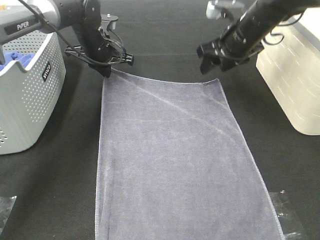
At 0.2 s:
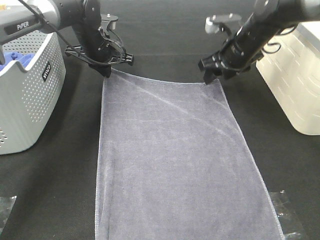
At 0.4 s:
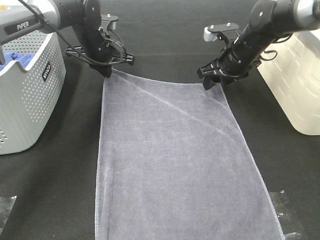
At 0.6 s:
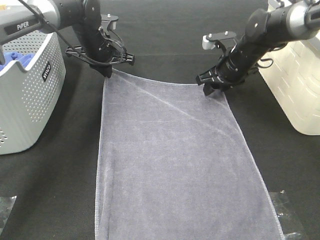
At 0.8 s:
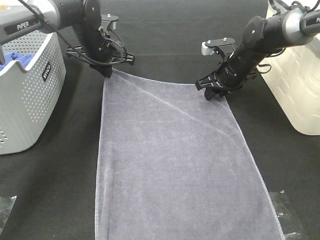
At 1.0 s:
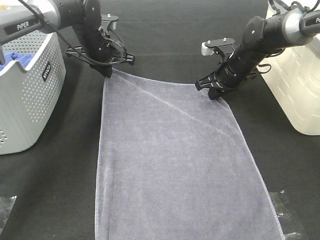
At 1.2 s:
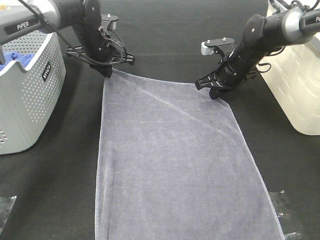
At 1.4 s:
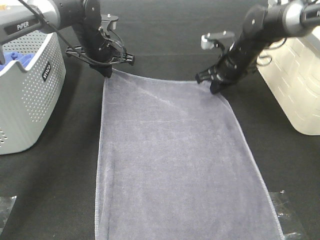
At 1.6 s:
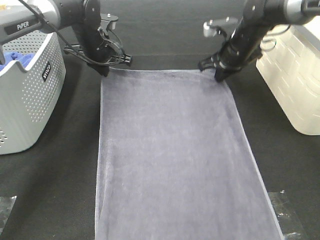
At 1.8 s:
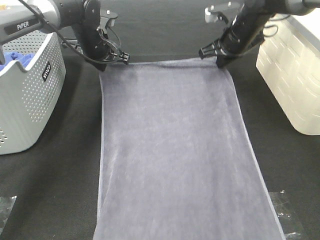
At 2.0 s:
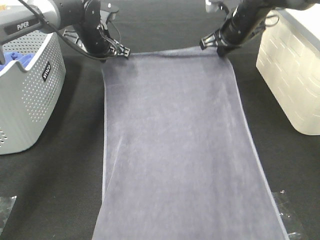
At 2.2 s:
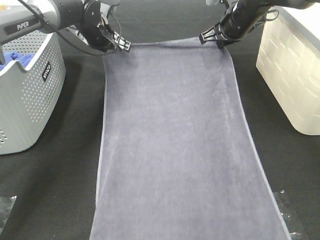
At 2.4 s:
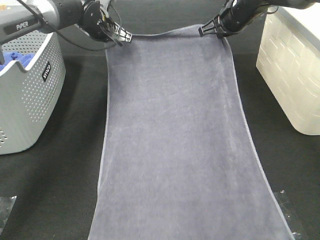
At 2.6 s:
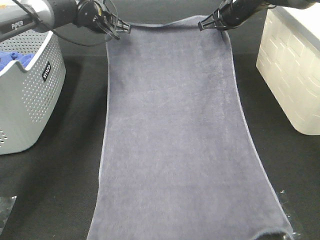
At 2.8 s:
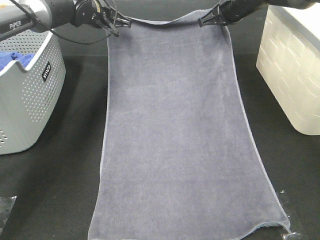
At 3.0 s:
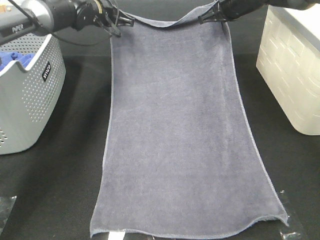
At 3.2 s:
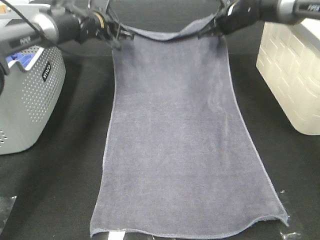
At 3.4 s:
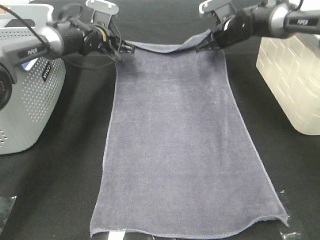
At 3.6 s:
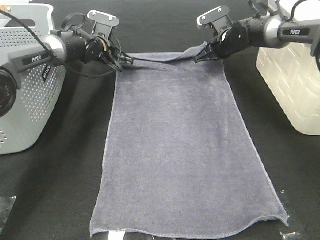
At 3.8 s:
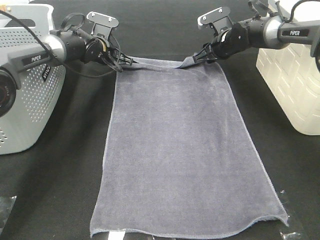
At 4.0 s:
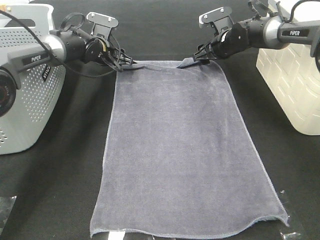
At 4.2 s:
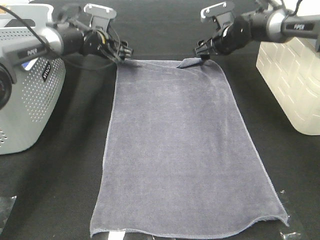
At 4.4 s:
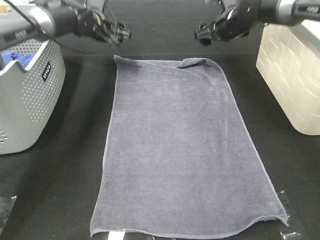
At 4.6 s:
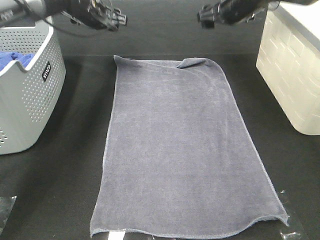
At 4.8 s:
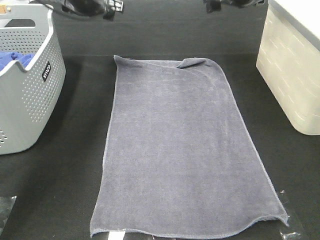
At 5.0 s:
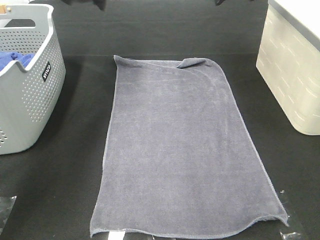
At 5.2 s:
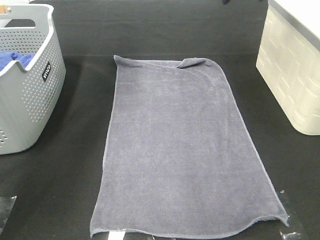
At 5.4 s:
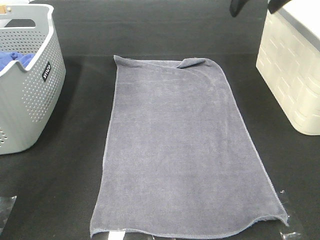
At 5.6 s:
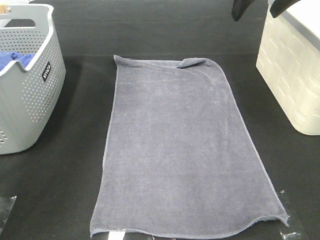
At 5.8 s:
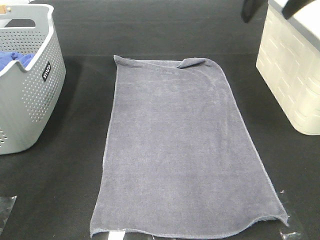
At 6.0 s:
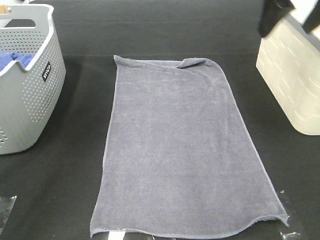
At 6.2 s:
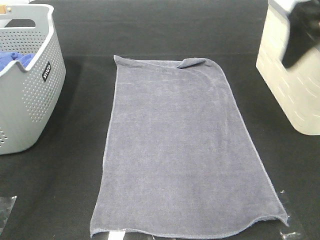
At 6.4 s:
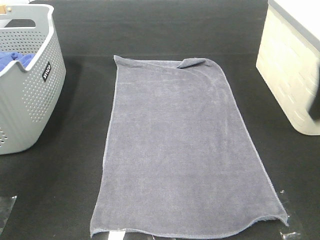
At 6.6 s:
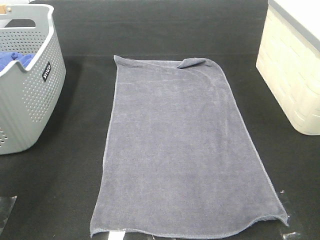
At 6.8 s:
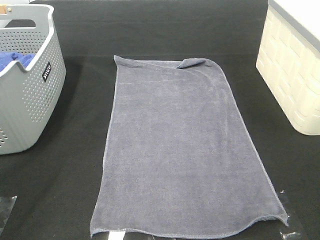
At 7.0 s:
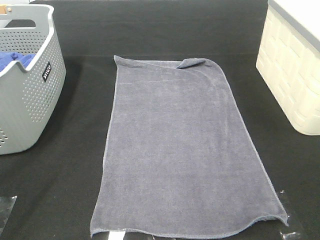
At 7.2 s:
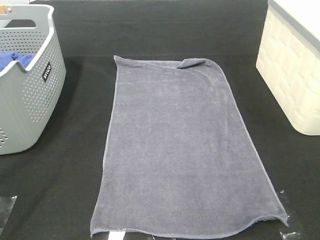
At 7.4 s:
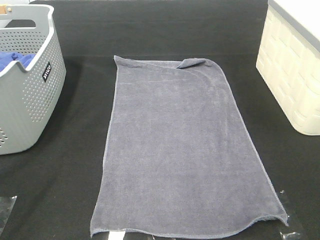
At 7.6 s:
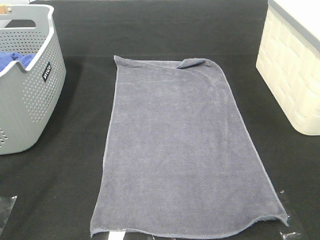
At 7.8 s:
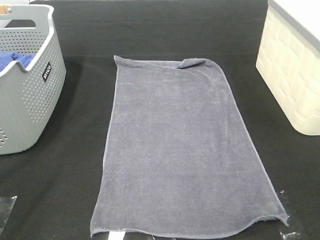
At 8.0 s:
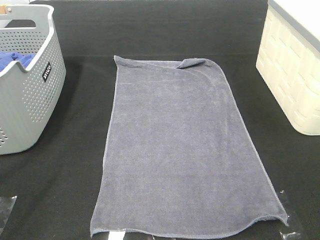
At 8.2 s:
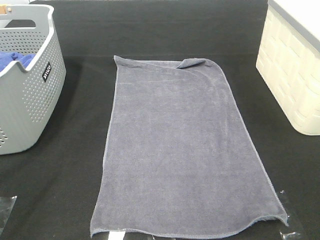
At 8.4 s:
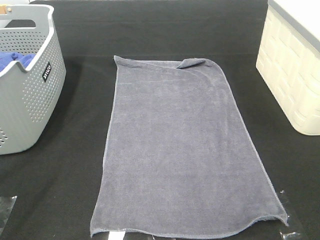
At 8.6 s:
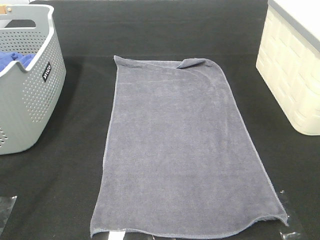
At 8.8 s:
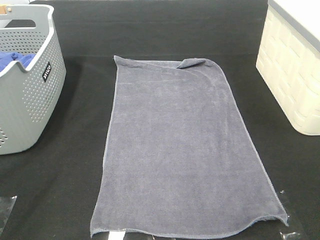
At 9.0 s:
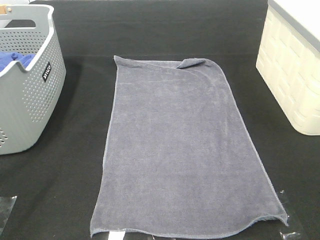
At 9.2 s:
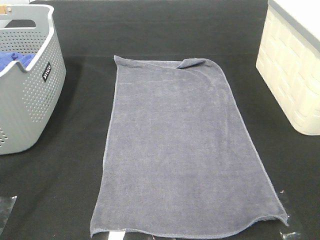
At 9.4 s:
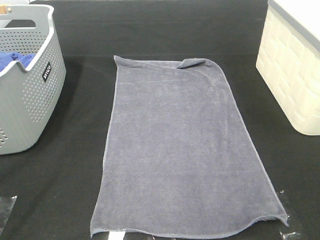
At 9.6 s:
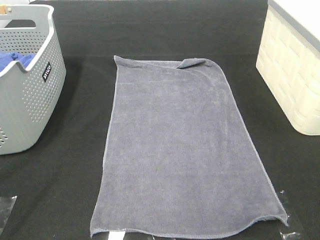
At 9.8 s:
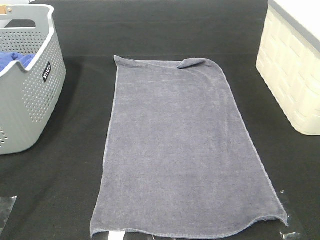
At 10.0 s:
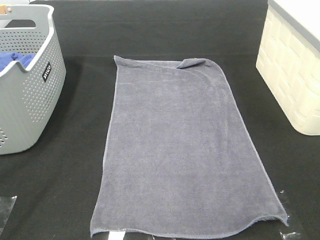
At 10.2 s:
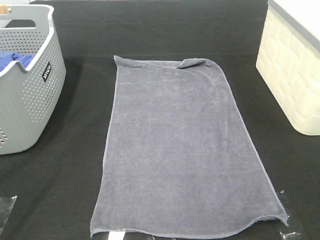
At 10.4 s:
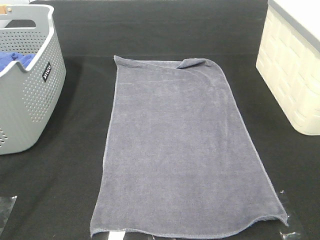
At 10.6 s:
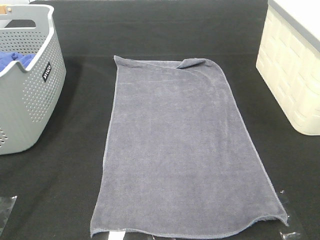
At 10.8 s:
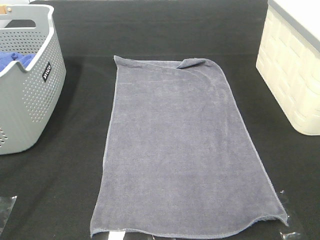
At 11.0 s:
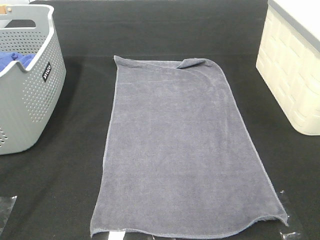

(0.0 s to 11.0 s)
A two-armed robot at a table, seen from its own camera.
Task of the whole recording: Remove the towel and place it.
0.0 s - 1.6 s: The right gripper closes its fingers.
1.6 s - 3.2 s: Both grippers move forward, approximately 5 cm.
3.2 s - 4.8 s: Both grippers move upward, some 10 cm. The left gripper opens. Meanwhile the right gripper opens its fingers.
4.8 s - 6.2 s: The left gripper travels backward and upward by some 30 cm, while the right gripper travels backward by about 25 cm.
6.2 s - 7.8 s: Both grippers move backward, about 25 cm.
9.4 s - 11.0 s: Both grippers stay put.

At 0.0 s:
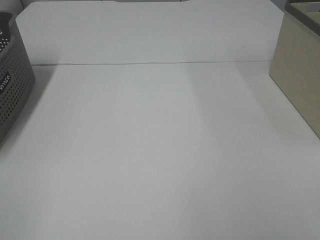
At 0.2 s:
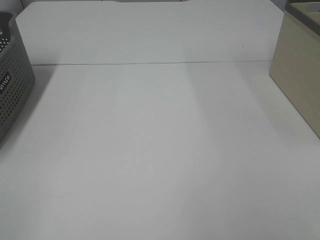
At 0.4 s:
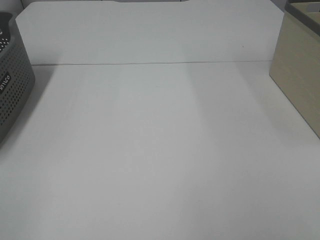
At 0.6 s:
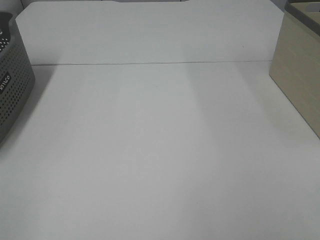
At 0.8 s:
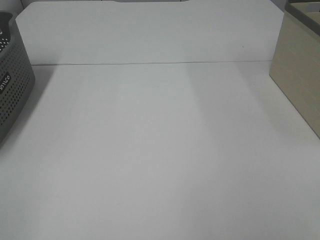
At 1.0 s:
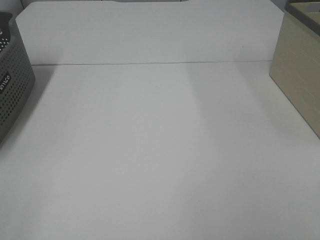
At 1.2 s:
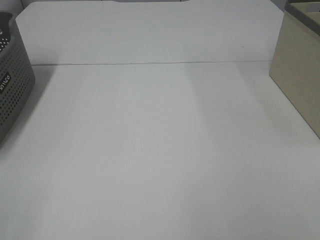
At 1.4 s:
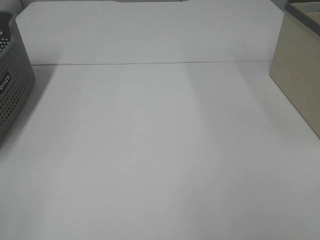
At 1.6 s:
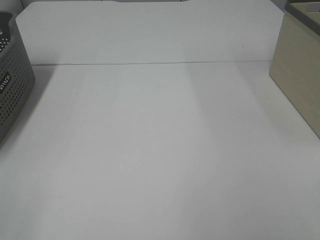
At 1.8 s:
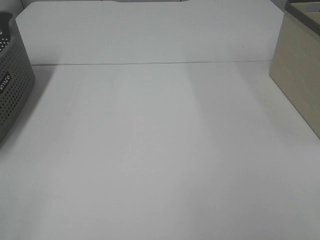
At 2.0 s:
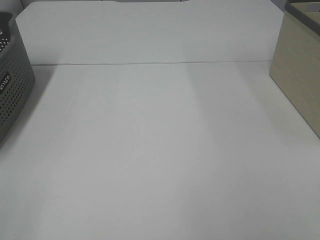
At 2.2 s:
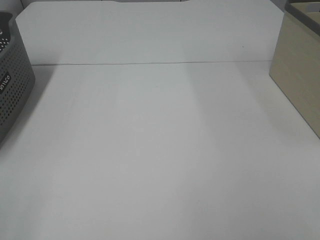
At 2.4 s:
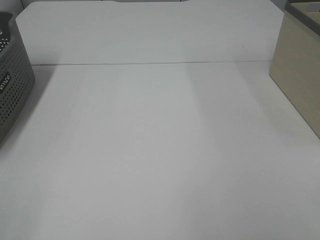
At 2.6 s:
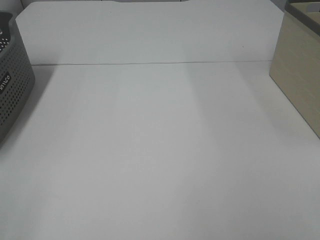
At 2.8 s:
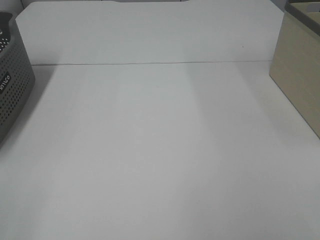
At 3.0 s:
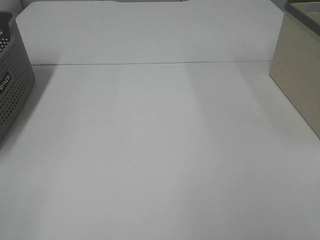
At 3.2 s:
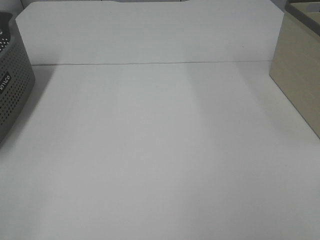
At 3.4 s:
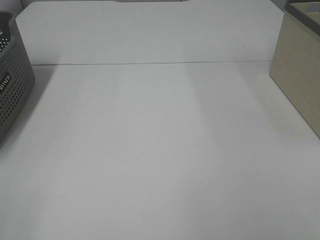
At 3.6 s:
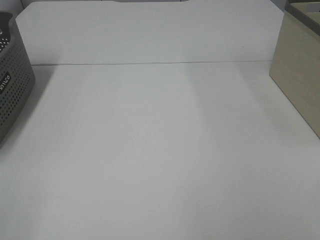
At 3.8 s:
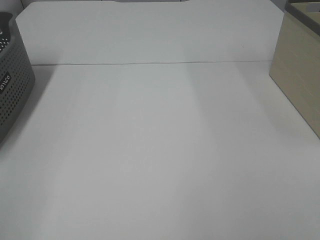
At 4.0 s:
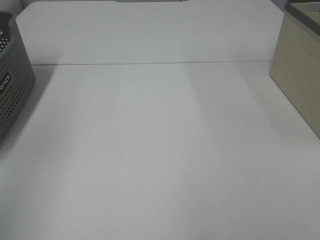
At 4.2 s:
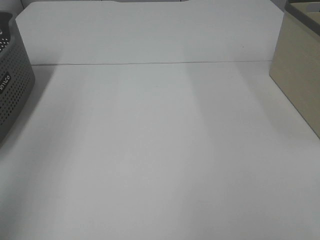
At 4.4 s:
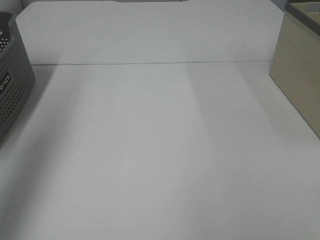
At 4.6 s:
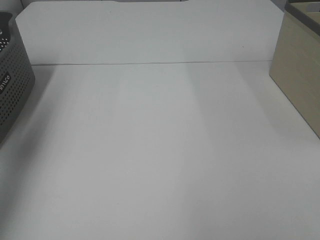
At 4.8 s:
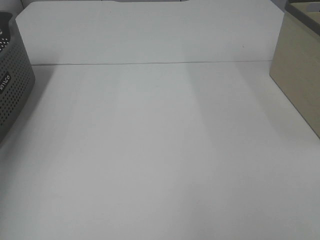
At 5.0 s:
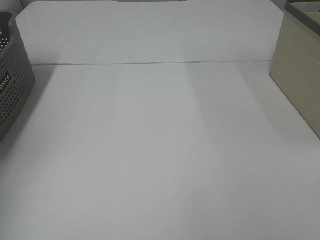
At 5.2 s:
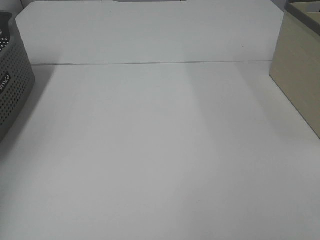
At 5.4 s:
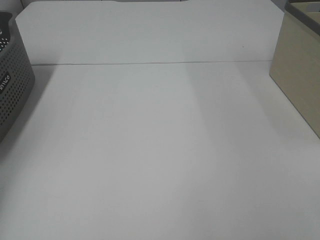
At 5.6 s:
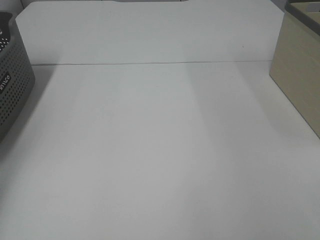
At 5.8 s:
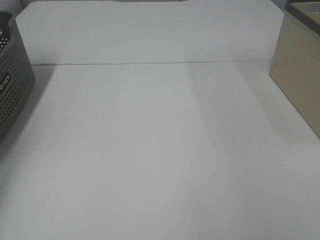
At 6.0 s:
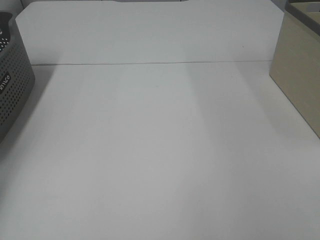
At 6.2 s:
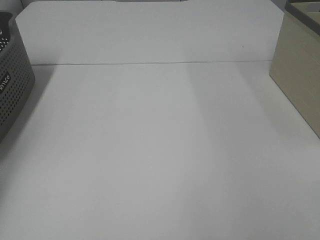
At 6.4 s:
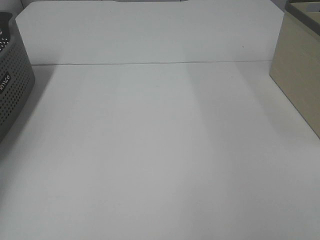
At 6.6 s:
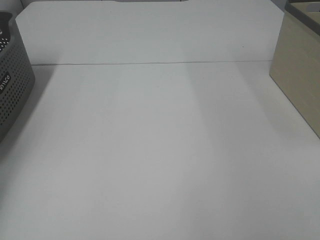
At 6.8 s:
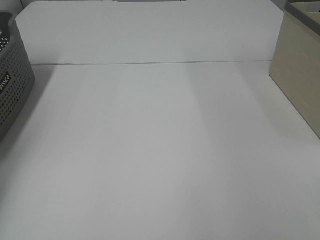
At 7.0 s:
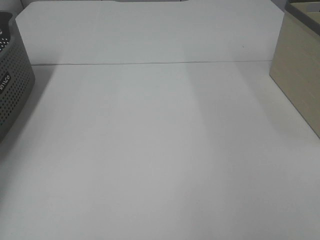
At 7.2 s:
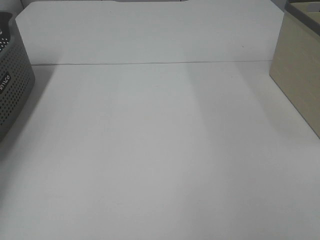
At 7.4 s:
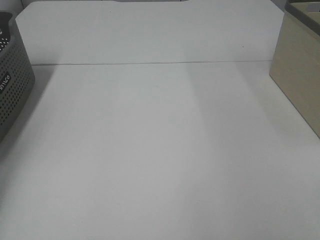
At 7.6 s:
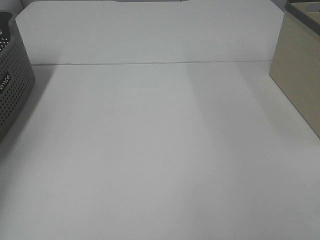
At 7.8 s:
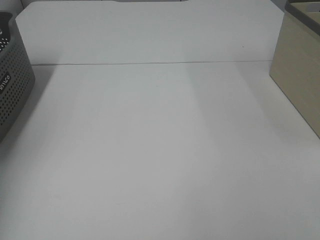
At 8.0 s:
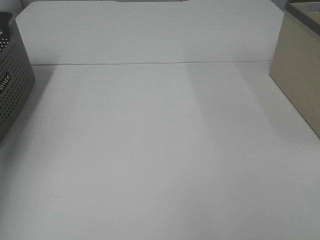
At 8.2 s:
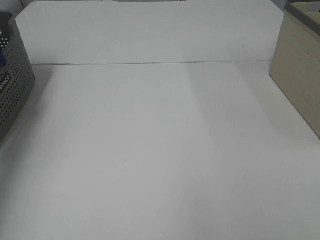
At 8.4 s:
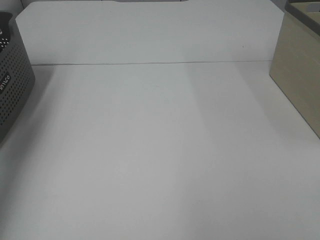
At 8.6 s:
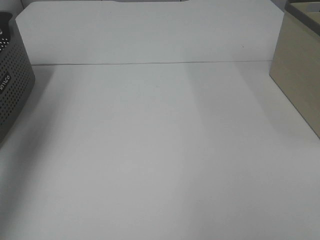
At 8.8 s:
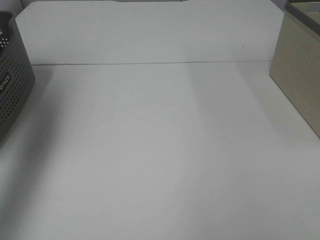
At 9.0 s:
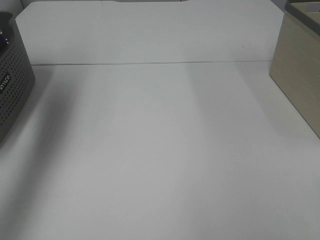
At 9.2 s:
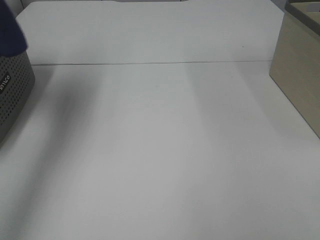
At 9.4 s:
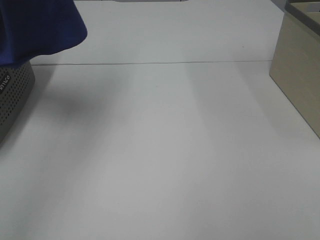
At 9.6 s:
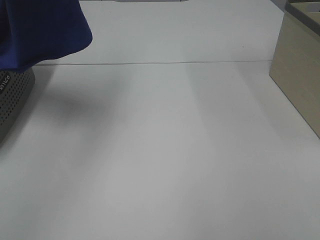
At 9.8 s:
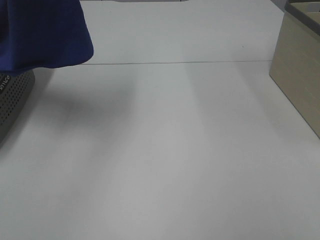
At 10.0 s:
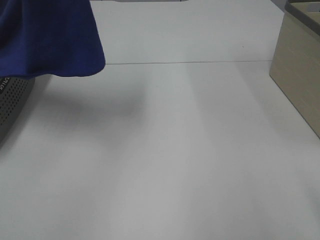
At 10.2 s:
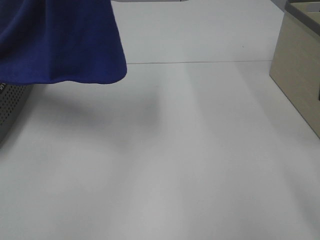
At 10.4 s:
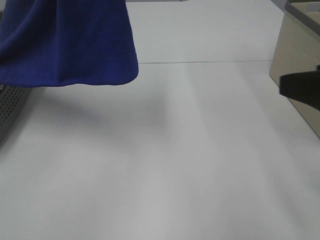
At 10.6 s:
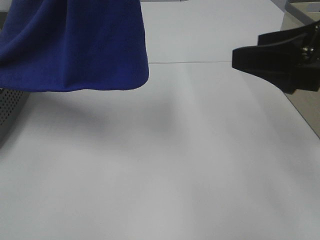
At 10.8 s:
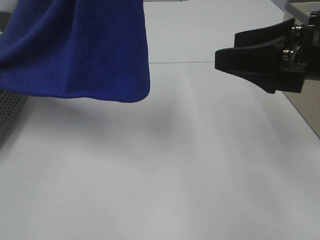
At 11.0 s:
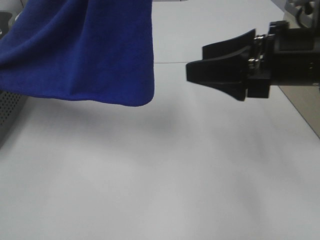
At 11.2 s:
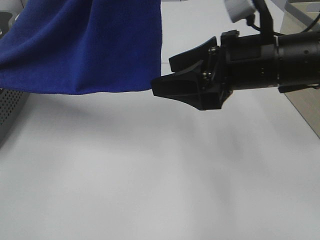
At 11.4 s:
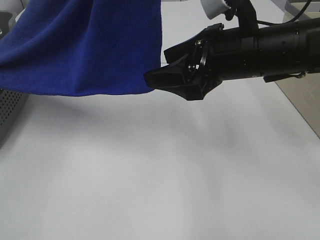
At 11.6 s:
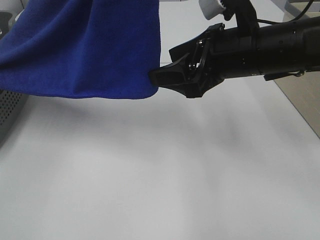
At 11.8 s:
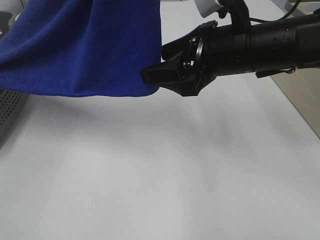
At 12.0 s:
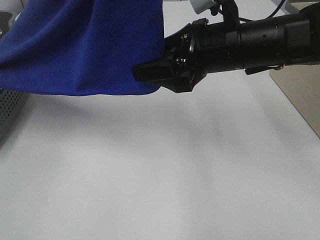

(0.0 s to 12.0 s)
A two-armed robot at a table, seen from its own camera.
Task of the whole recording: Remove the towel and place it.
0.0 s - 3.0 s: Both grippers stay put.
3.0 s - 4.4 s: The left gripper moves forward and upward, some 30 cm.
4.4 s - 6.0 s: The left gripper moves downward, forward and to the left, roughly 35 cm.
7.6 s - 9.0 s: The left gripper is displaced upward and to the right by approximately 30 cm.
9.0 s - 10.4 s: The right gripper shifts some 15 cm forward. Meanwhile the left gripper shifts some 15 cm to the right.
10.4 s - 12.0 s: The right gripper goes some 20 cm forward and to the left.
